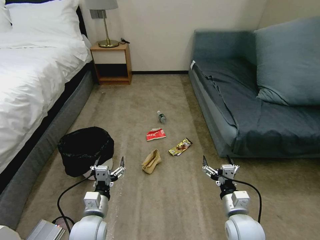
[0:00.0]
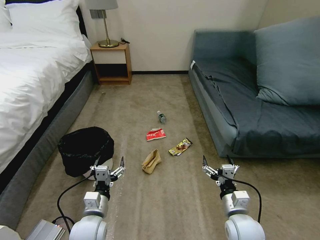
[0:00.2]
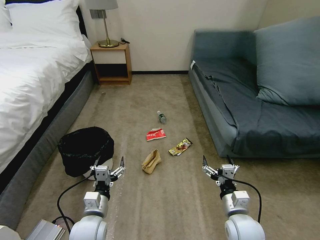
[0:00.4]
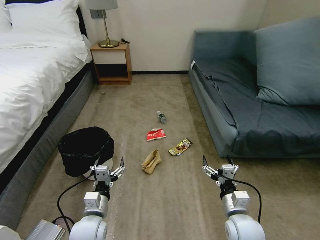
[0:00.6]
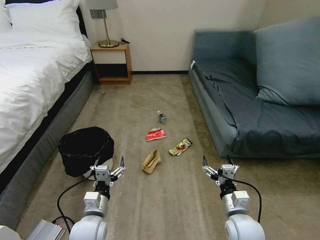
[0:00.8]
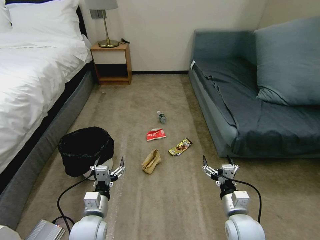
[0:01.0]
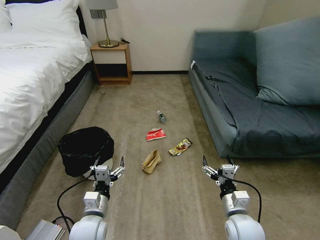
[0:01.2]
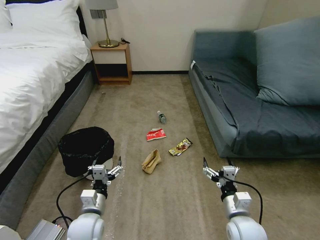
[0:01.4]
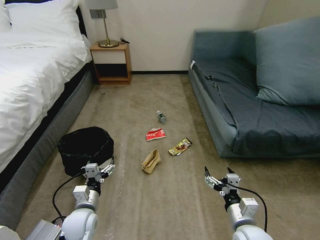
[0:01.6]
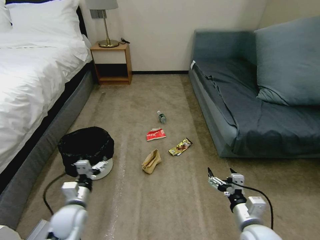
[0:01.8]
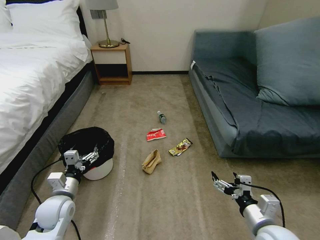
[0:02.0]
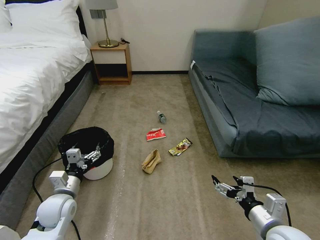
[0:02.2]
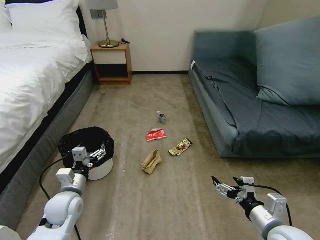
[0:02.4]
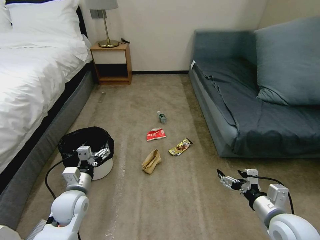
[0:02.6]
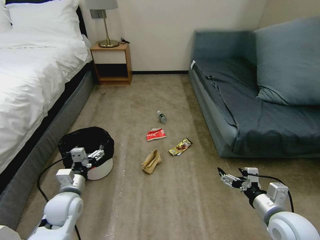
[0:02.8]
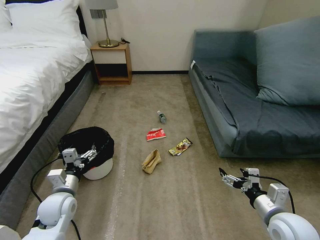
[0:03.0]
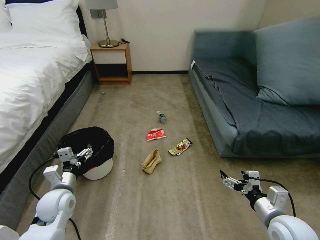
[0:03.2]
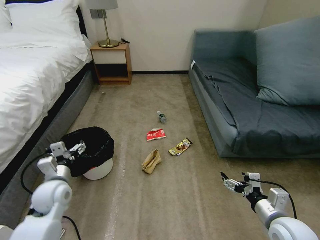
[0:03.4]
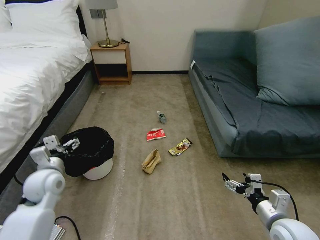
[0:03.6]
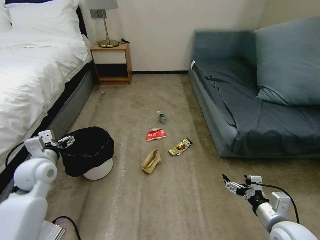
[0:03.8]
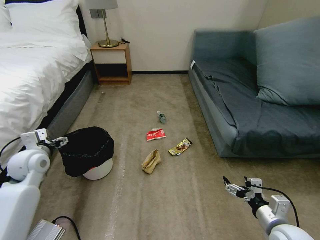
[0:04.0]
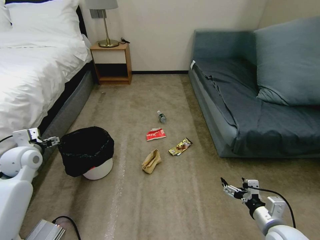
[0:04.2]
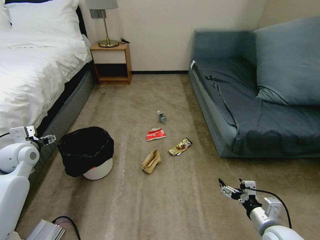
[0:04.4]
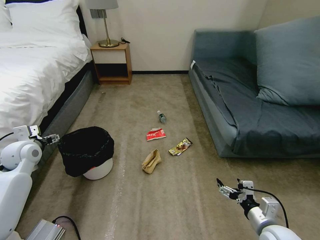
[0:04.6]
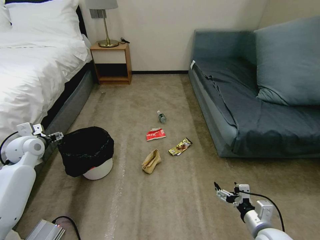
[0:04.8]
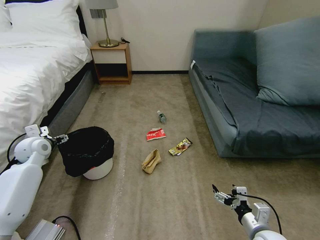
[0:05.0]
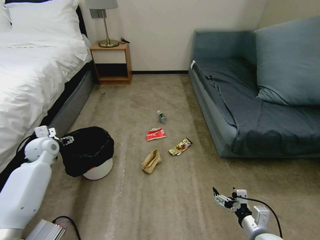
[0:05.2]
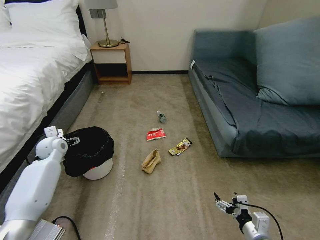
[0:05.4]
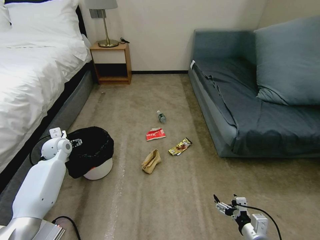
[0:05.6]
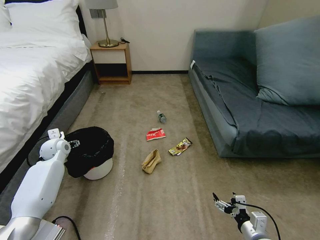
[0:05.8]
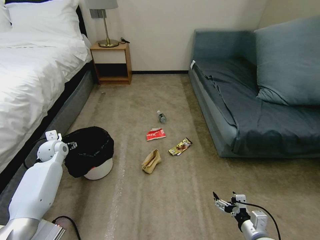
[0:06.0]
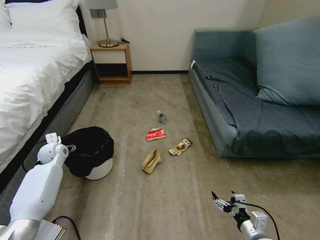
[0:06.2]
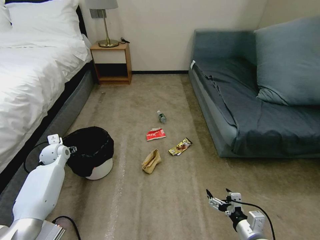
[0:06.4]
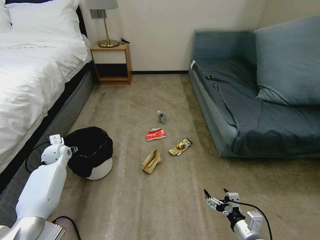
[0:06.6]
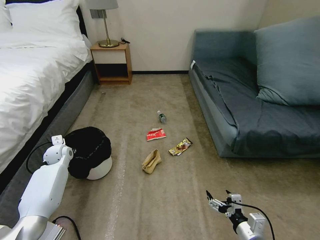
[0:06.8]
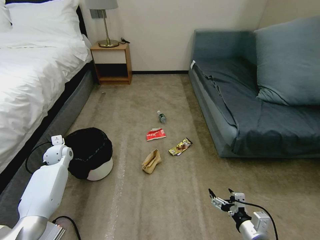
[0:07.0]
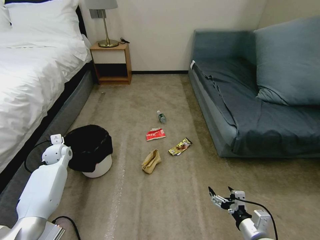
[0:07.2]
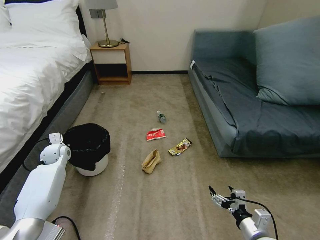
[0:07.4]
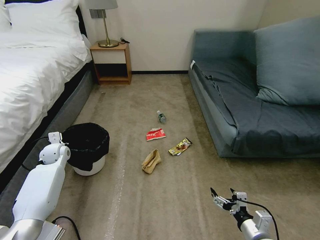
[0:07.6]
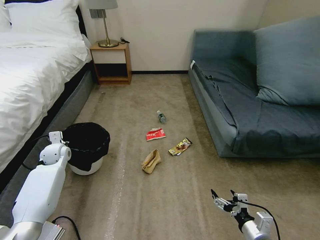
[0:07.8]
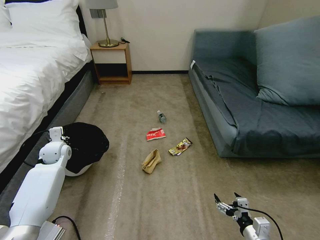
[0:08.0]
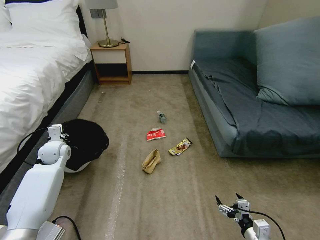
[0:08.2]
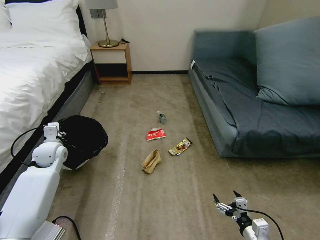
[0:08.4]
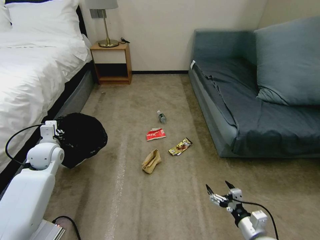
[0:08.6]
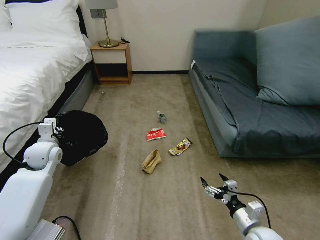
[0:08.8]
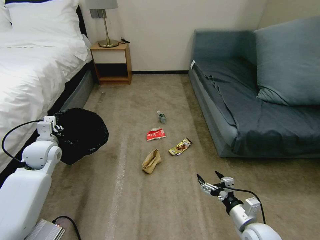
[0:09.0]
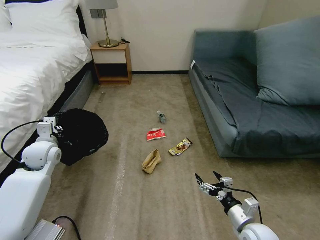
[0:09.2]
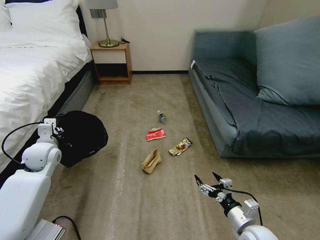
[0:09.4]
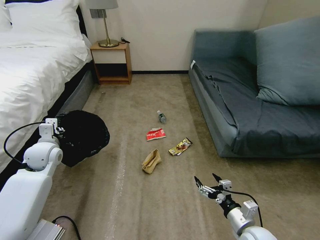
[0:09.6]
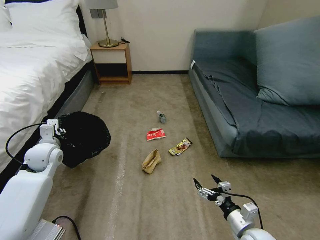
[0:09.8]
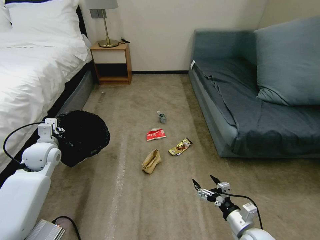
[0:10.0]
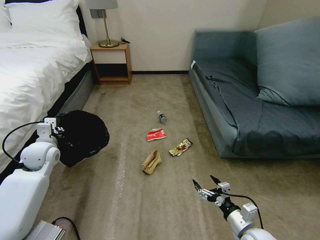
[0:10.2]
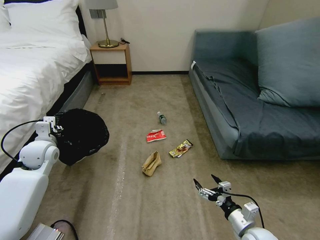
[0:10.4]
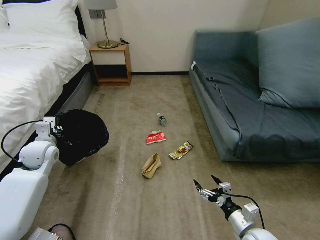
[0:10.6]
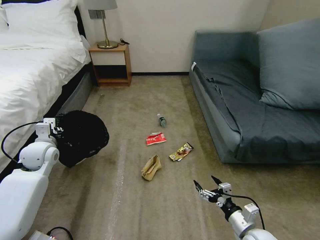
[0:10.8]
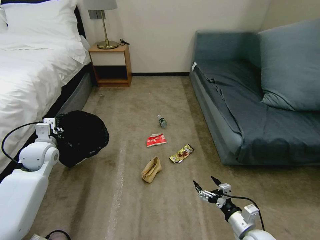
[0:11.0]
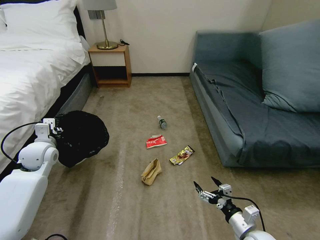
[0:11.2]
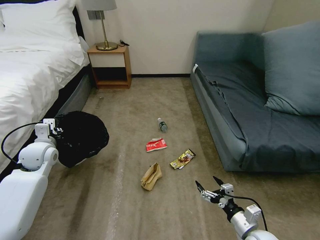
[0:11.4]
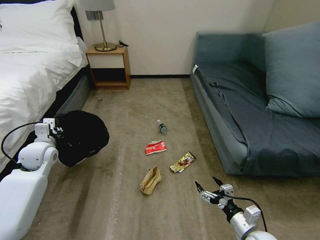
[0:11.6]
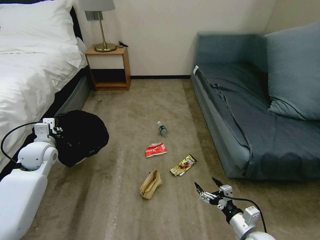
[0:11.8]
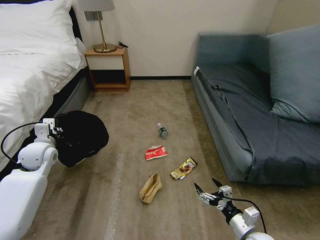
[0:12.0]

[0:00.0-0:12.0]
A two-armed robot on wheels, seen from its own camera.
Task of the whole recording: Pick up the trash bin, then pick up the garbage on the floor and place it into the trash bin.
0:01.6 to 0:03.0: The left gripper goes left and right, approximately 5 cm each way, reversing 2 times. The right gripper shifts roughly 10 cm to the right and upward.
0:03.0 to 0:04.4: The right gripper shifts about 5 cm downward; the left gripper travels to the left, upward and forward by approximately 20 cm.
0:04.4 to 0:06.0: The left gripper is displaced downward and forward by about 15 cm, while the right gripper travels downward by about 5 cm.
0:06.0 to 0:07.6: The left gripper closes its fingers.
0:07.6 to 0:09.0: The left gripper is displaced upward and backward by roughly 10 cm.
0:09.0 to 0:10.4: The grippers move only a little.

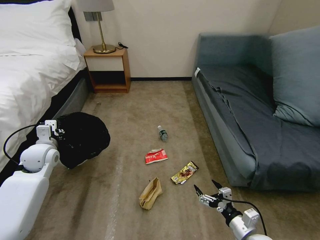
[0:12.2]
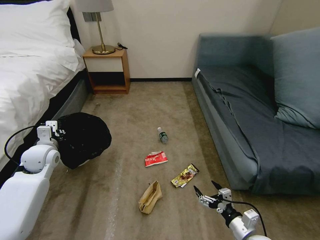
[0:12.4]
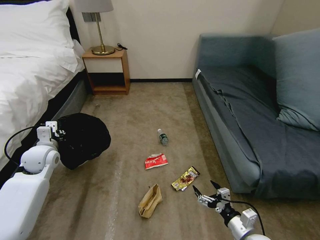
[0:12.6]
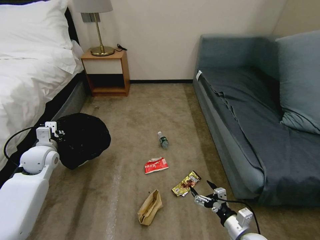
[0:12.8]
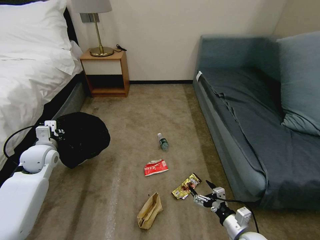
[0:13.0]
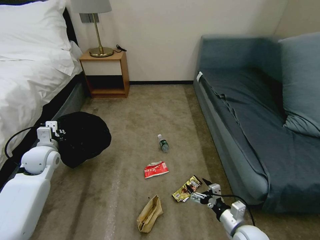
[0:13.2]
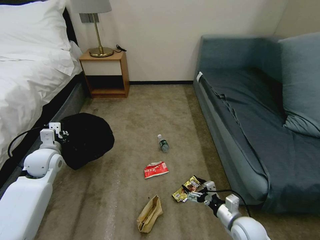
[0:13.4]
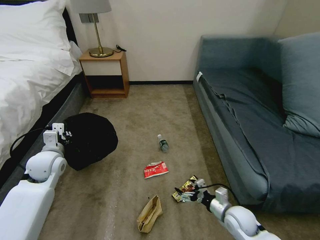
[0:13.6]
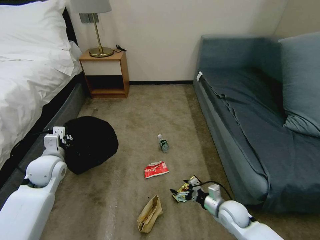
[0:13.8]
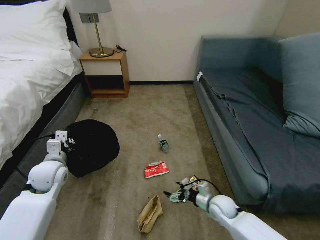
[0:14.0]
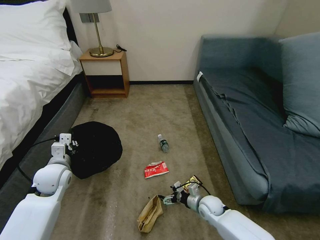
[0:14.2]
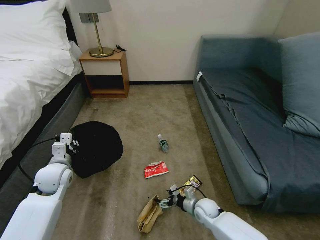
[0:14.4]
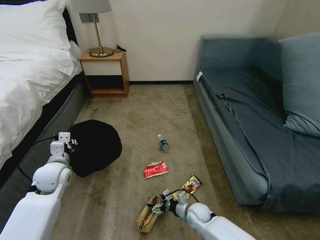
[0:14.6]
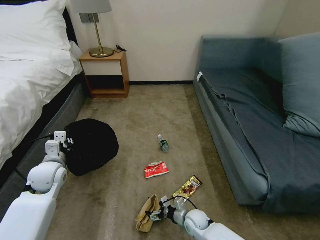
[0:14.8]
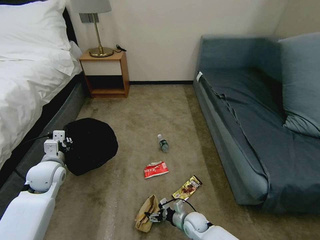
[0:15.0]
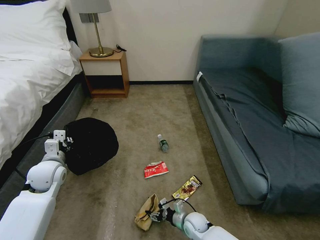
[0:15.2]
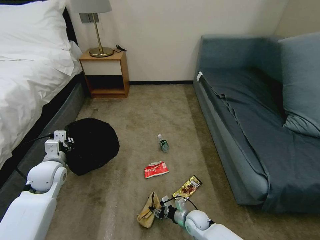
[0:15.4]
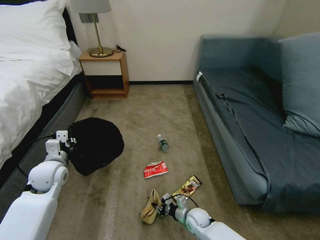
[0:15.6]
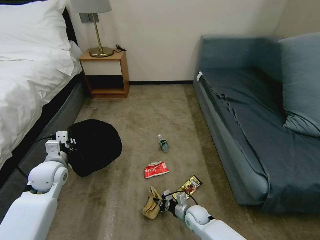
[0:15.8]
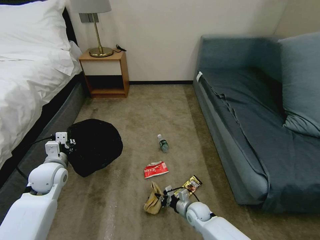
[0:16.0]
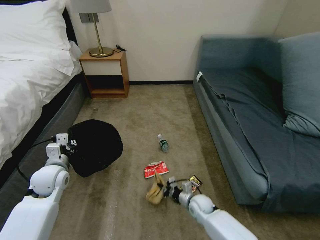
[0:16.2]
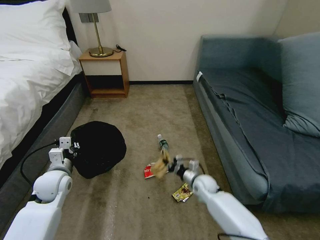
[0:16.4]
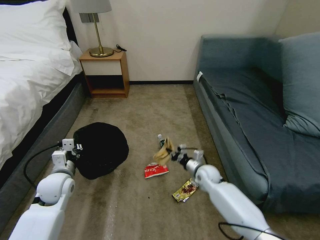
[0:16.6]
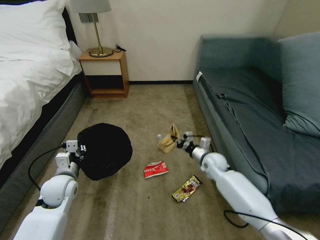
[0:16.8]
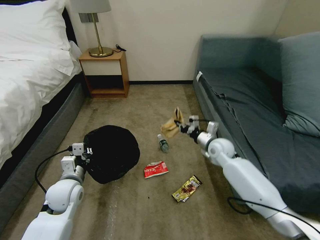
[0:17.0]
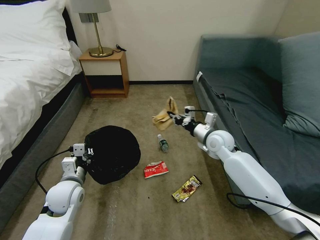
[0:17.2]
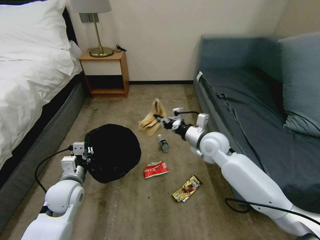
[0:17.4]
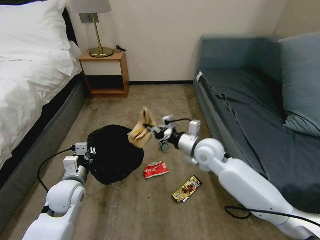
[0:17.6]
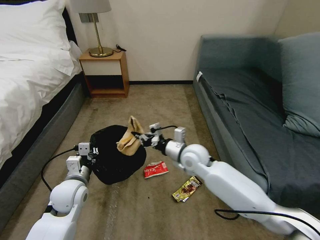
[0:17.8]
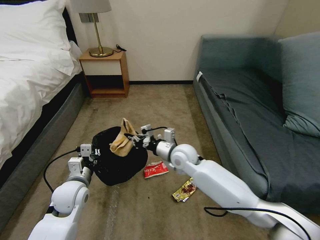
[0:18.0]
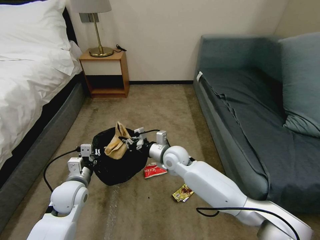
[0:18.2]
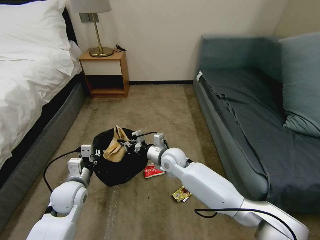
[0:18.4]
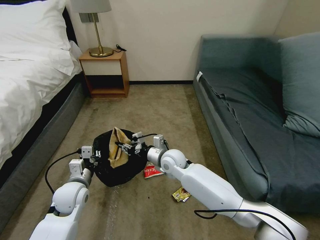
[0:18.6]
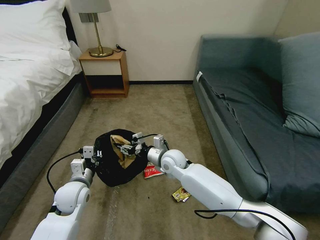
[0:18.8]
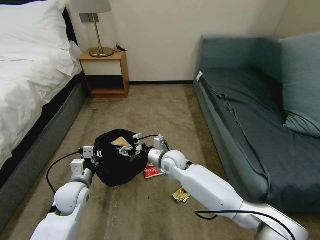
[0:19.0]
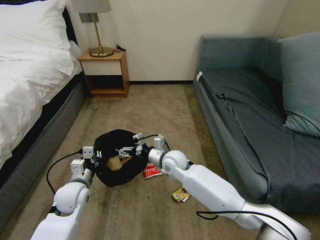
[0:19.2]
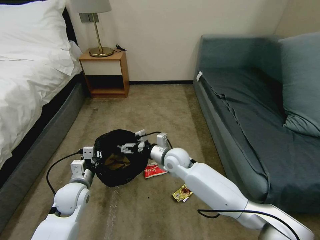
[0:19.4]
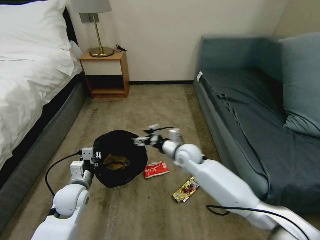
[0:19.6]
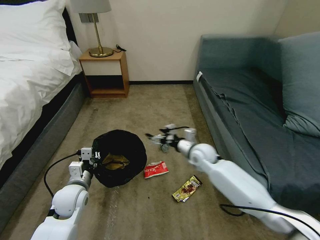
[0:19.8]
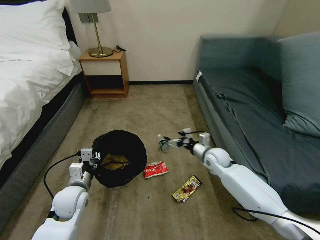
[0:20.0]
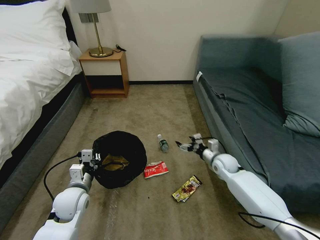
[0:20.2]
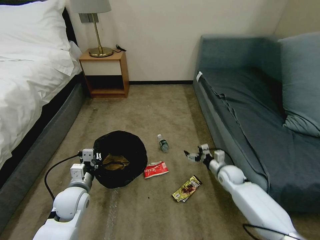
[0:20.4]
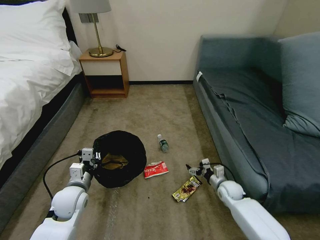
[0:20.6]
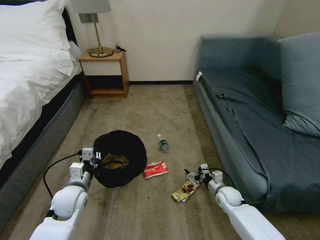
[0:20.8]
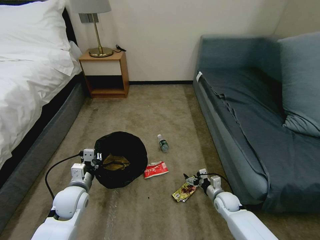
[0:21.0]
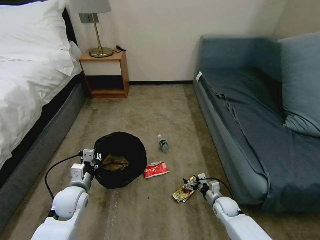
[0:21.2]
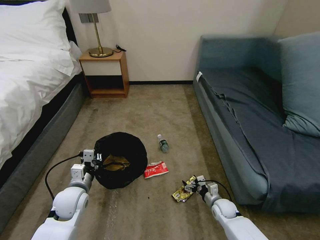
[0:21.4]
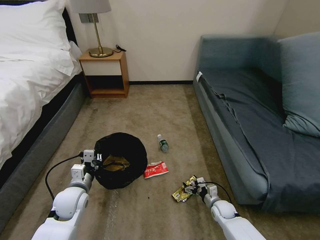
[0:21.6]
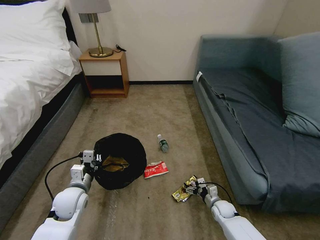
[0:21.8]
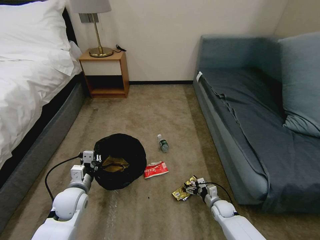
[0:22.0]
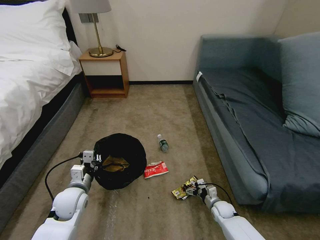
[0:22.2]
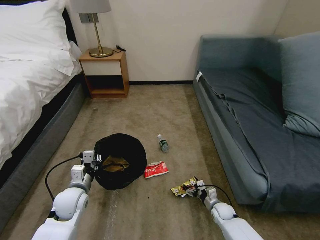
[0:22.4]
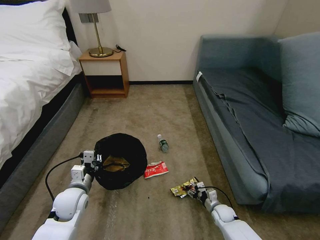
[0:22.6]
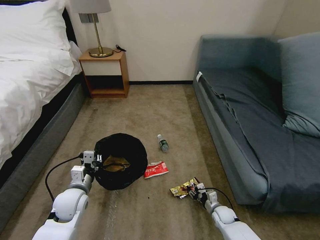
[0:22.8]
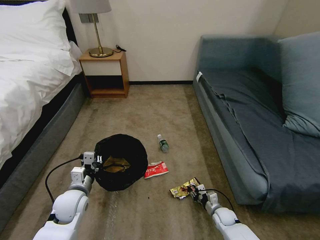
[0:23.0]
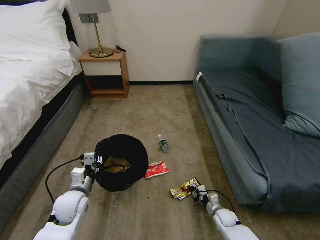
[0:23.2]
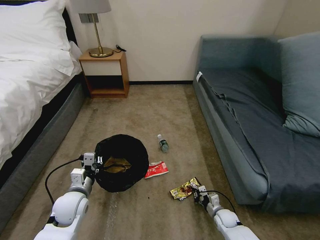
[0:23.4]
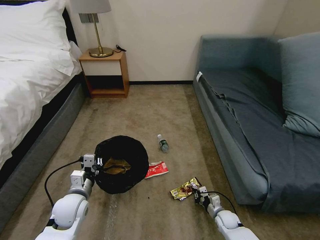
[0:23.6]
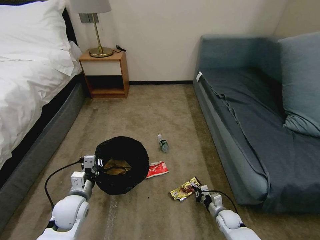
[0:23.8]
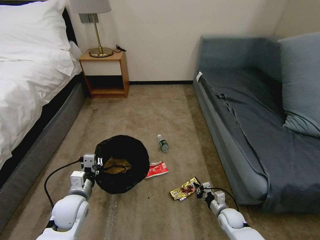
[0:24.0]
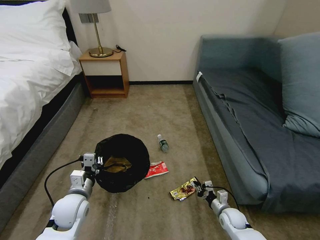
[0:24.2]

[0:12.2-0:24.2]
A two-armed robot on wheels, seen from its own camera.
Task of the whole recording: Pick up the trash bin, then pick up the garbage on the floor and place it into the trash bin.
0:12.2 to 0:13.8: The left gripper moves approximately 5 cm. Meanwhile the right gripper heads forward, covering about 10 cm.
0:13.8 to 0:15.2: The right gripper goes approximately 15 cm downward and to the left, and closes its fingers.
0:15.2 to 0:16.6: The right gripper goes about 20 cm forward and upward, and closes up. The left gripper shifts by about 5 cm.
0:16.6 to 0:18.2: The left gripper shifts some 5 cm to the right, while the right gripper is displaced to the left and upward by approximately 20 cm.
0:18.2 to 0:19.8: The right gripper is displaced to the right by some 10 cm, and opens its fingers.
0:19.8 to 0:21.2: The right gripper is displaced downward, to the right and backward by roughly 30 cm.
0:21.2 to 0:22.6: The right gripper goes some 5 cm downward.
0:22.6 to 0:24.2: The right gripper changes place by about 5 cm, and closes its fingers.
